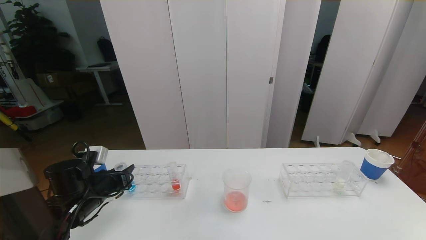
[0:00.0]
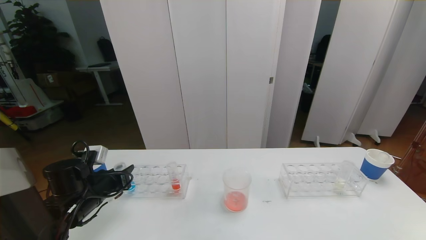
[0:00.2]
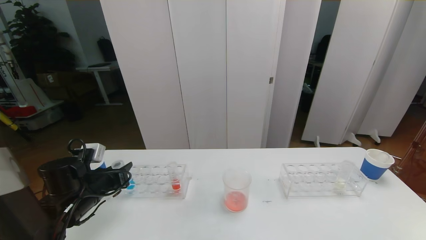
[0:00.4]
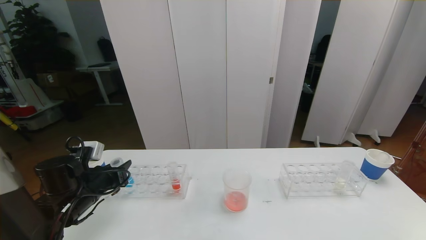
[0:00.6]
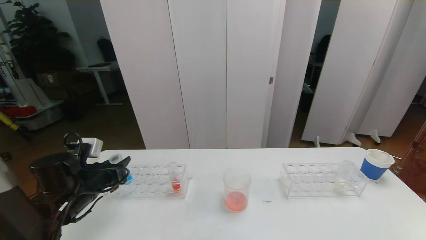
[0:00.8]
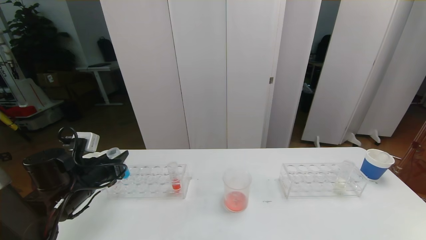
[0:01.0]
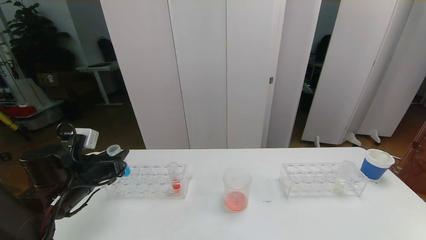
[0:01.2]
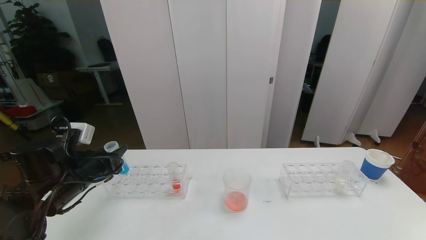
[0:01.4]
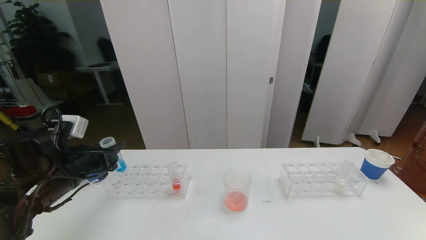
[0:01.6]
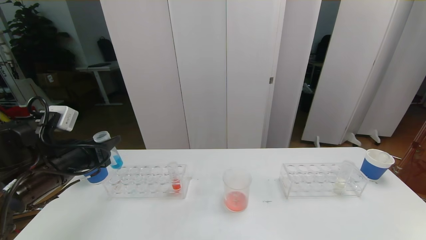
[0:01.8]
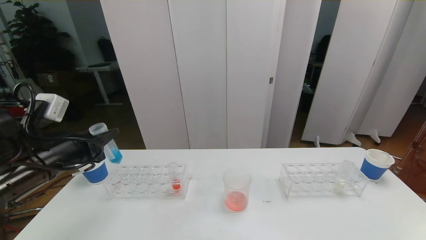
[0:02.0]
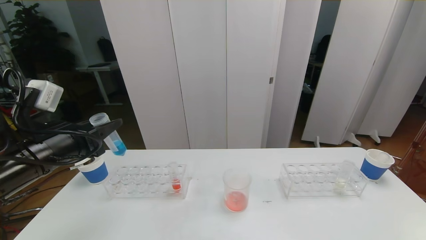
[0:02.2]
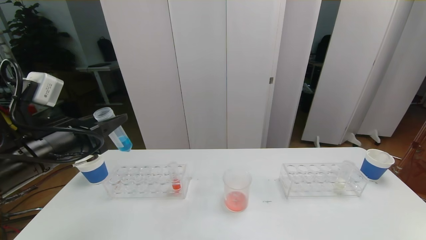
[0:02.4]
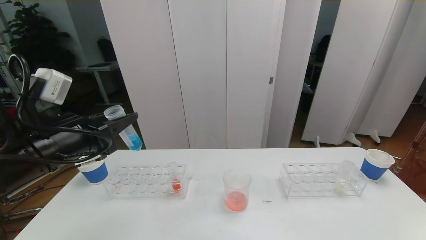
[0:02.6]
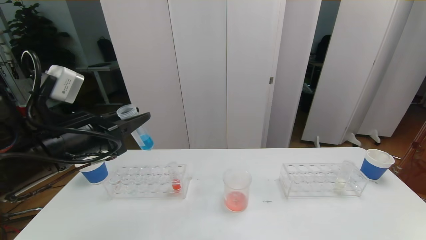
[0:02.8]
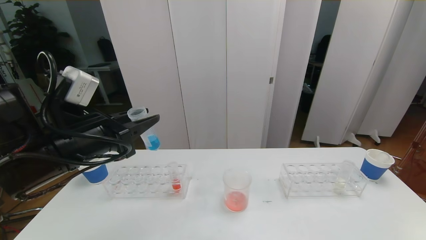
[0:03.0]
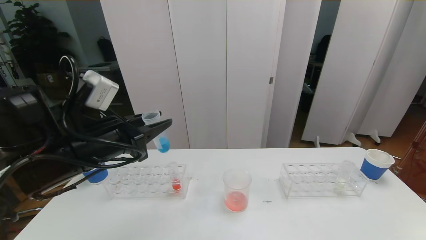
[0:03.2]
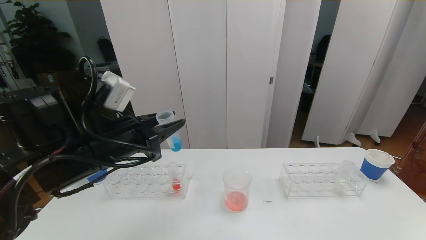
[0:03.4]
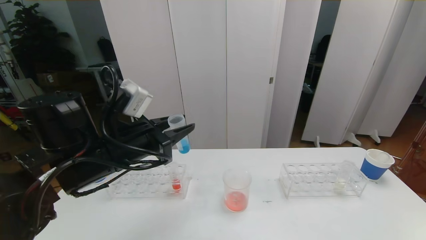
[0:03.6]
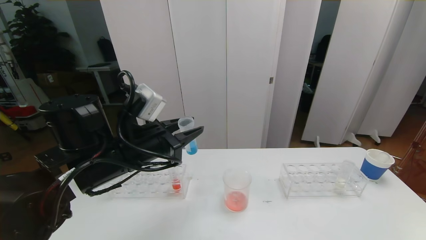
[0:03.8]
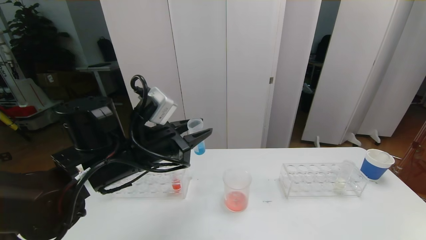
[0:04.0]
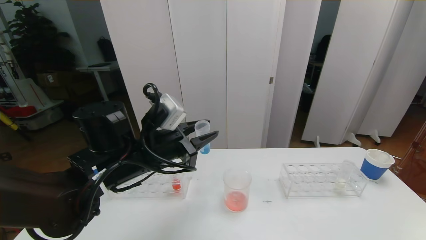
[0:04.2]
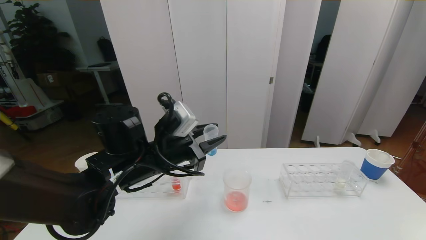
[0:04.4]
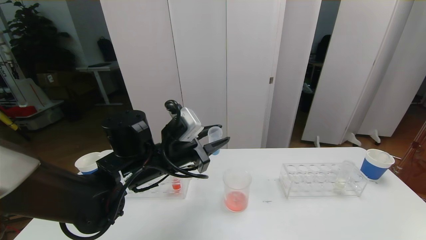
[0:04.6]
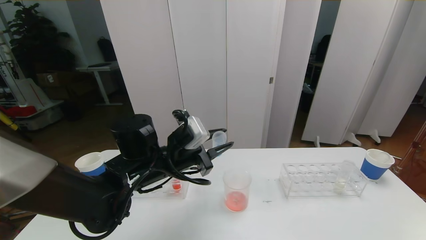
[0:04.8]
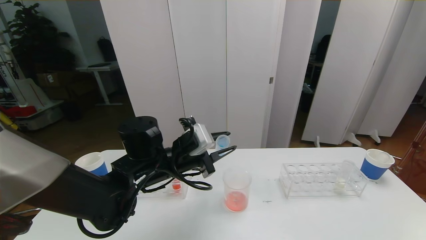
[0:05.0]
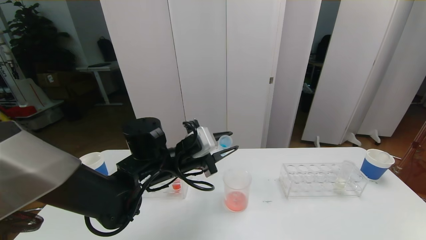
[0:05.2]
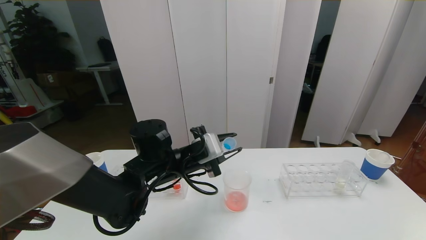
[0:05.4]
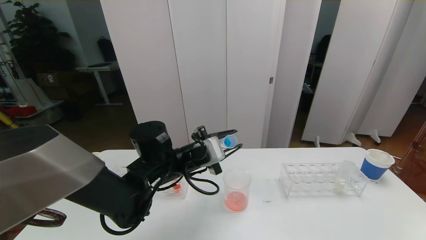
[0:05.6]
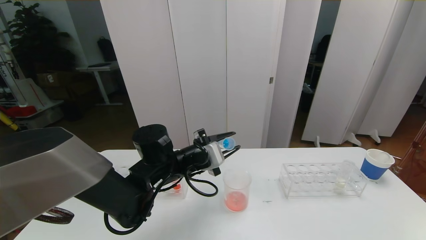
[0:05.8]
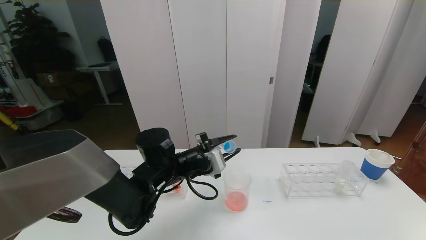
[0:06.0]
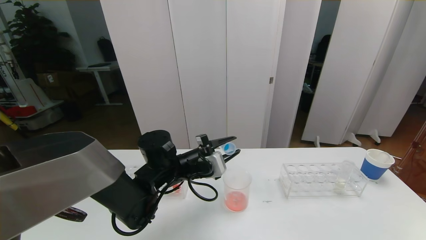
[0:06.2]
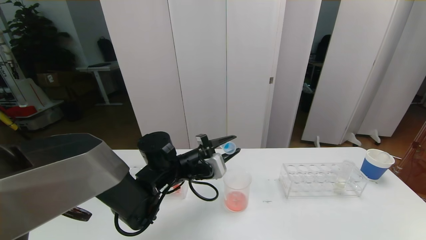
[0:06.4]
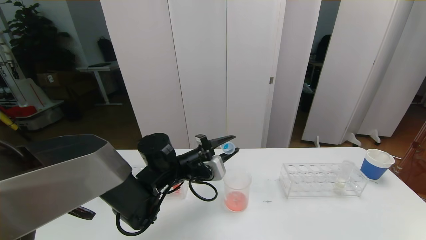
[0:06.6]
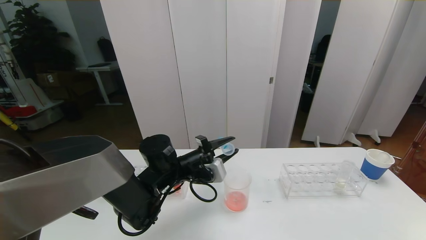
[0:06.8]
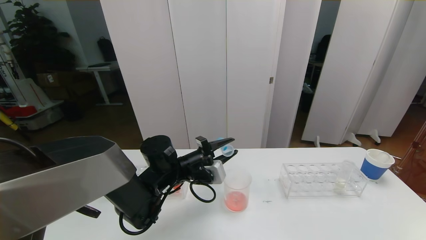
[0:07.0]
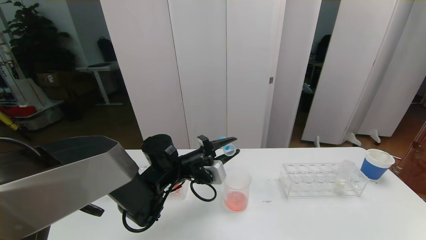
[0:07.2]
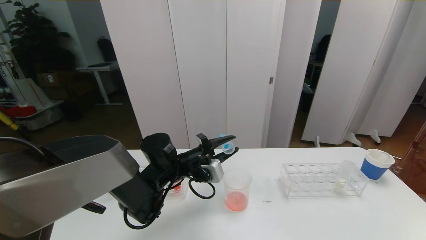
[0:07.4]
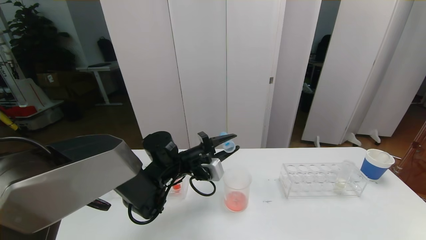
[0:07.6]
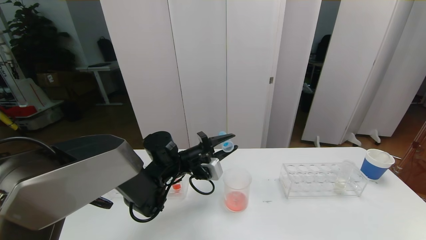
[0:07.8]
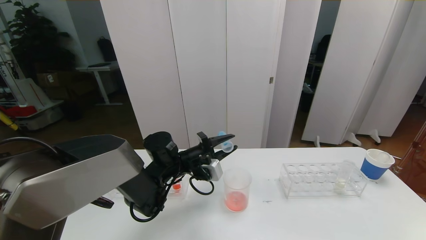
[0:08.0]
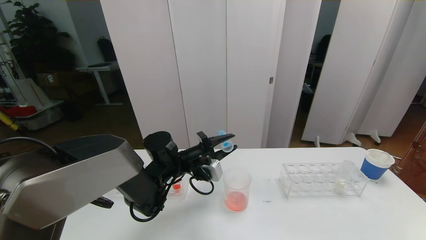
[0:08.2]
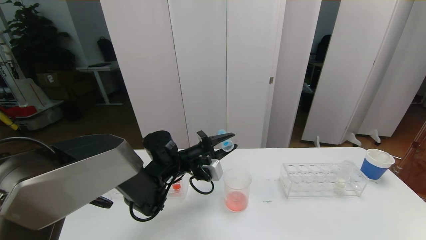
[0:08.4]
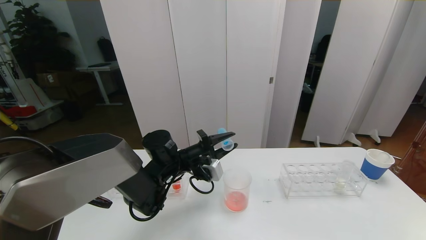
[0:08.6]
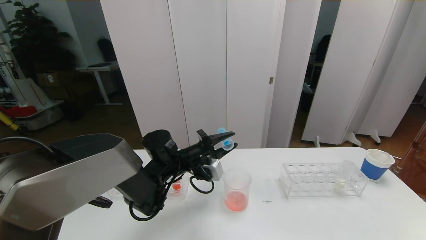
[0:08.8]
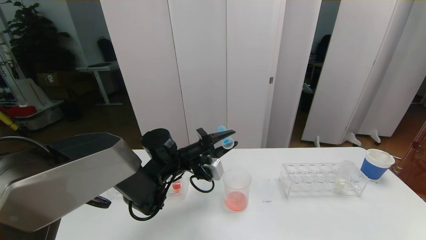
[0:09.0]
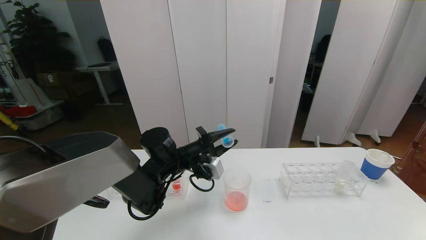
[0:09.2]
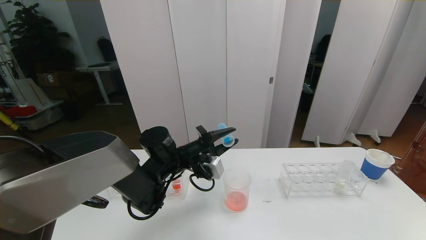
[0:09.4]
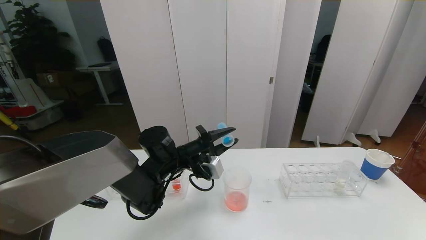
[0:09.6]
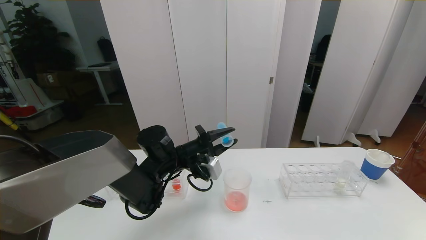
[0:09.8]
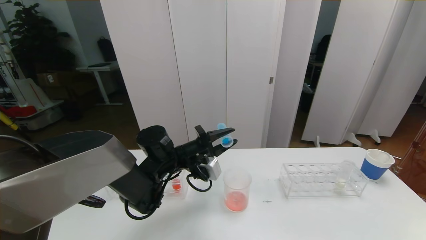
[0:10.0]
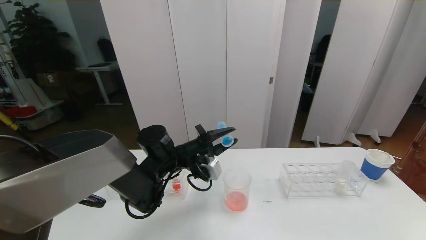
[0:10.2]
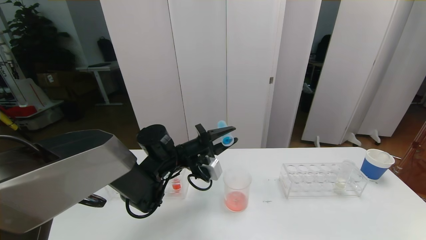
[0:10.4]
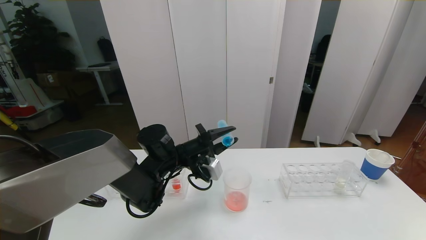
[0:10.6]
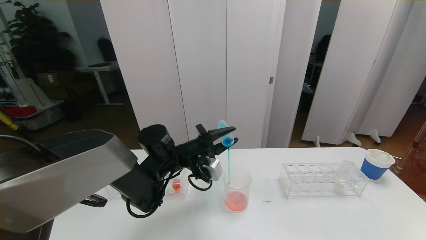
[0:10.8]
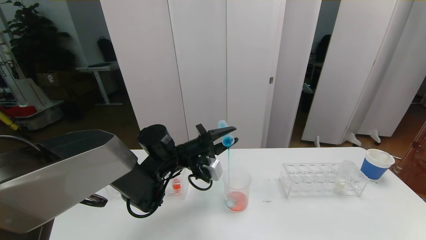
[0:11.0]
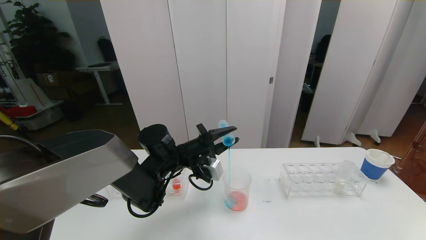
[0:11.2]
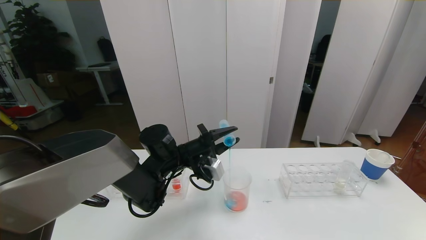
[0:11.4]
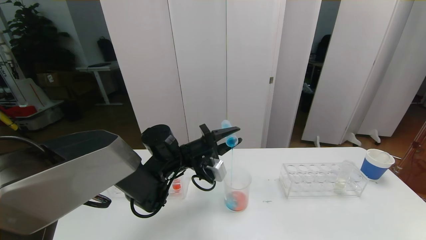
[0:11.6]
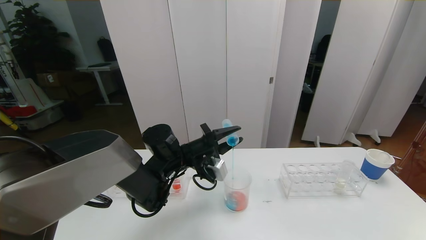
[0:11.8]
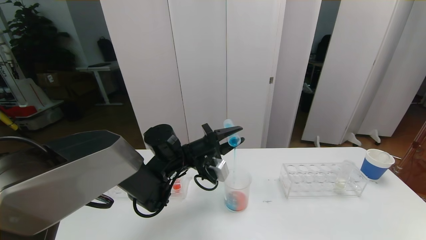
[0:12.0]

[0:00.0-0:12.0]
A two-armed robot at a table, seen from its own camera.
Task of the whole recording: pick up the test tube with red pigment the test tube with blue pigment and the test tube with white pigment by grippers and pour them into the beaker.
0:00.0 to 0:01.6: The left gripper shifts roughly 10 cm upward.
0:01.6 to 0:03.0: The left gripper shifts about 10 cm upward and to the right.
0:03.0 to 0:04.4: The left gripper travels to the right, downward and forward by about 10 cm.
0:04.4 to 0:06.0: The left gripper shifts roughly 5 cm downward.
0:06.0 to 0:07.6: There are only small adjustments of the grippers.
0:07.6 to 0:12.0: The grippers stay close to where they were, moving slightly.

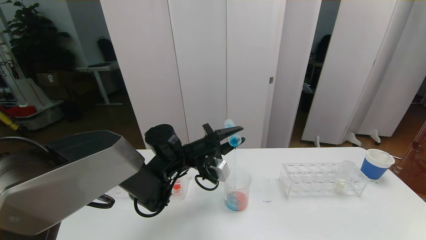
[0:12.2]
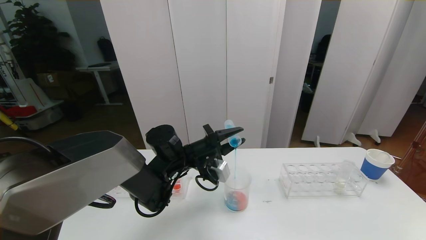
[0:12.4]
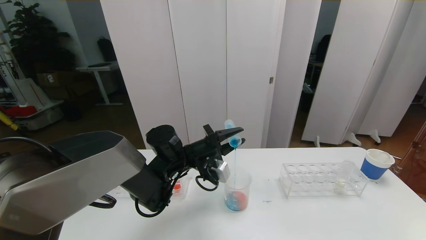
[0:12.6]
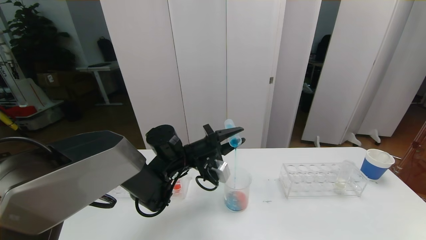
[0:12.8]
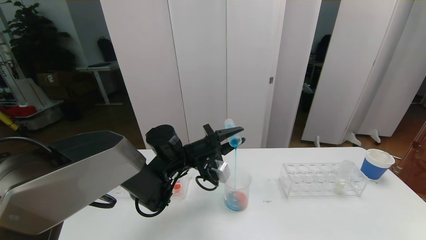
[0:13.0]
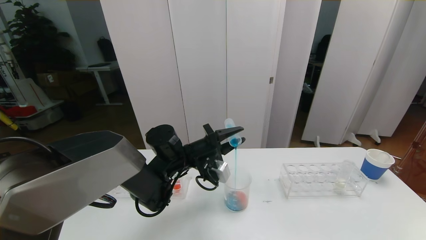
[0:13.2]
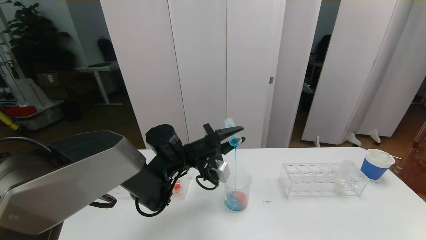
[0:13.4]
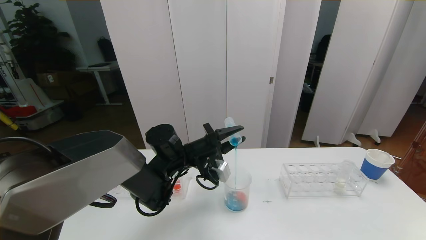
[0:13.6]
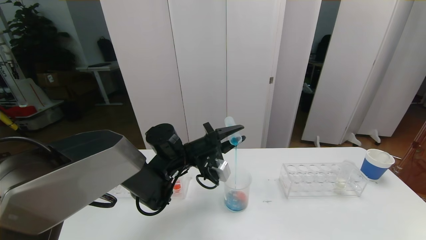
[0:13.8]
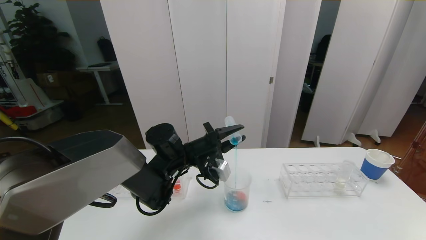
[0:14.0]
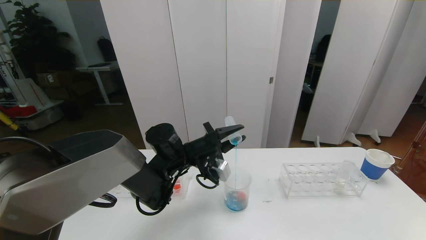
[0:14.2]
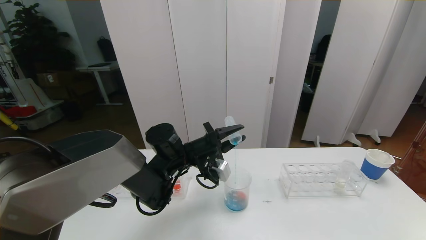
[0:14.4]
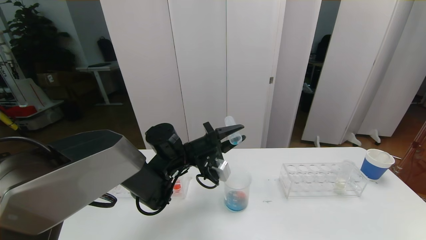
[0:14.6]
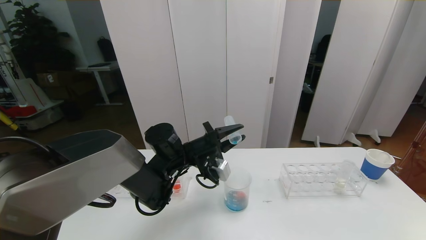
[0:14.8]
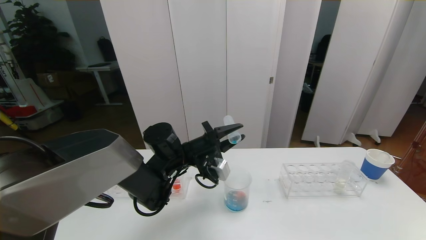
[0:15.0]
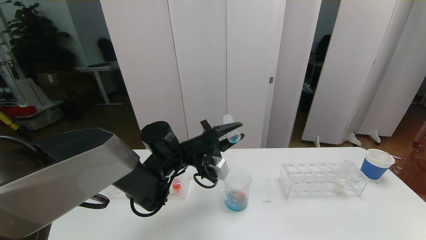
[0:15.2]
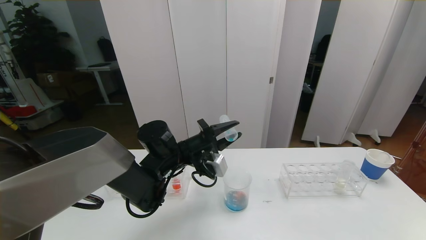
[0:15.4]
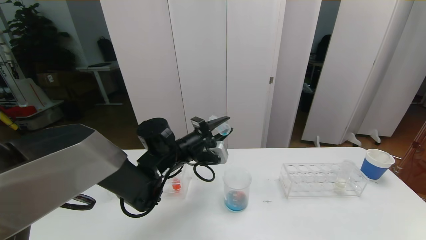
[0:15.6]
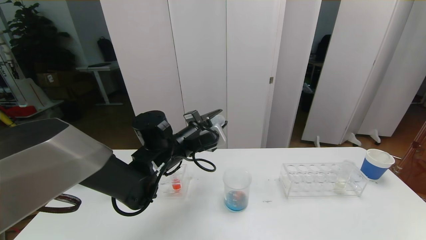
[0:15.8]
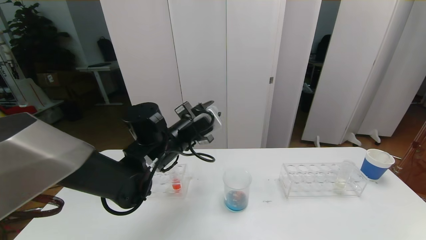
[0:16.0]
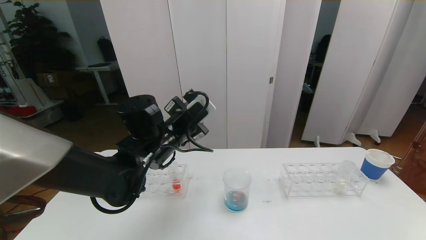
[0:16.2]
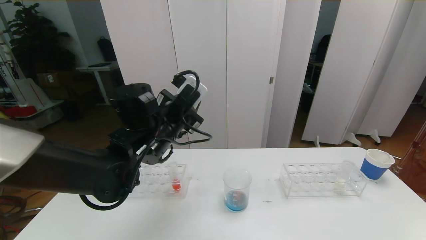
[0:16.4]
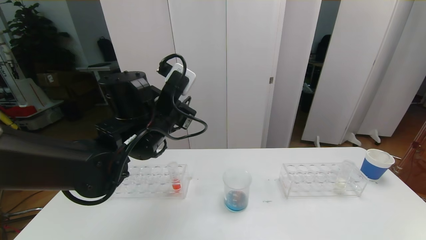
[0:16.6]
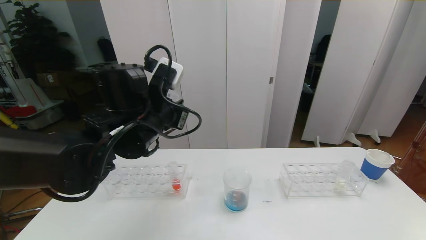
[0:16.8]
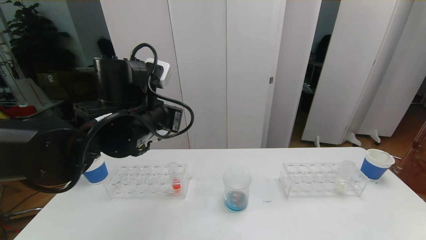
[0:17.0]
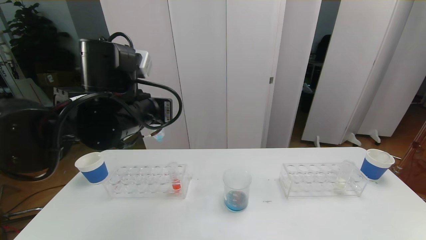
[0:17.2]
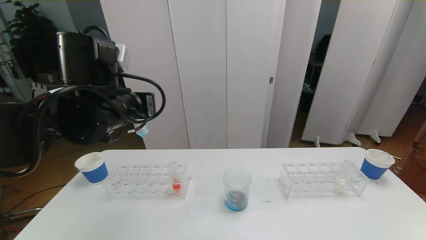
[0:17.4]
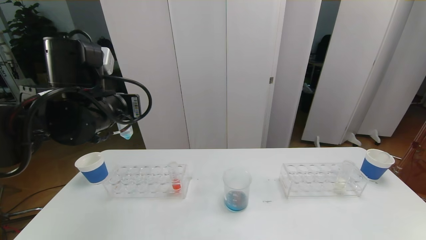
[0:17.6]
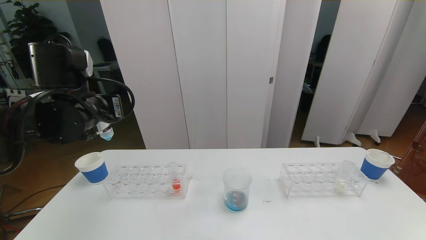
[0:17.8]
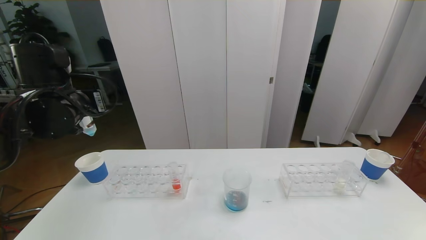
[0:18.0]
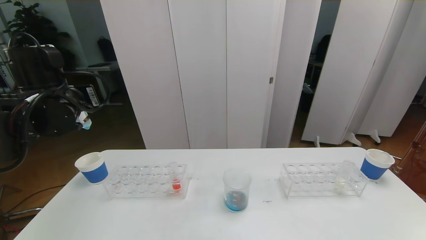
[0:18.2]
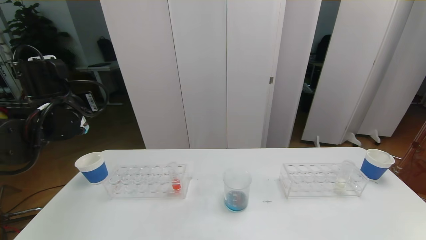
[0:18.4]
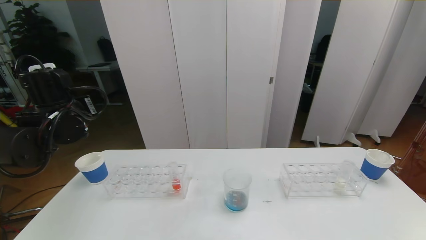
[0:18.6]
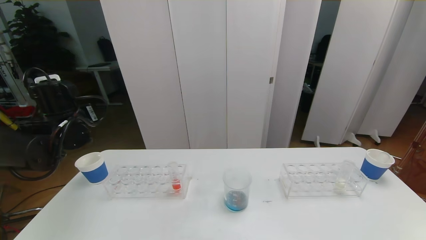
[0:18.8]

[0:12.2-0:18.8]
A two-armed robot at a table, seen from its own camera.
Task of the whole recording: pick up the test tube with red pigment the test tube with blue pigment and the test tube with white pigment by grippers and pour them into the beaker.
0:12.2 to 0:13.8: Both grippers stay about where they are.
0:13.8 to 0:15.4: The grippers move only a little.
0:15.4 to 0:17.2: The left gripper heads upward and backward, covering approximately 15 cm.
0:17.2 to 0:18.8: The left gripper moves to the left and forward, some 20 cm.
